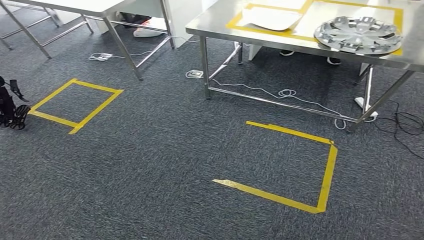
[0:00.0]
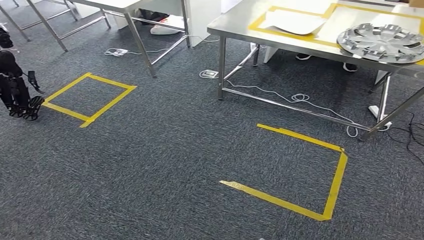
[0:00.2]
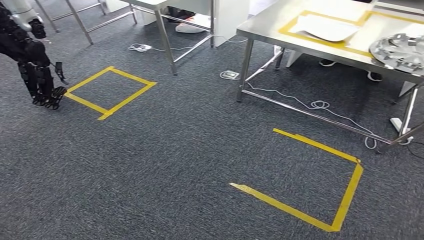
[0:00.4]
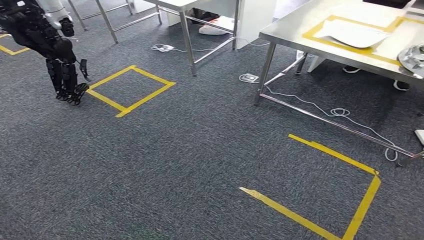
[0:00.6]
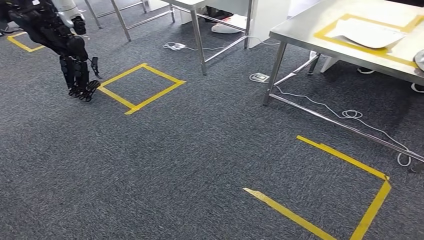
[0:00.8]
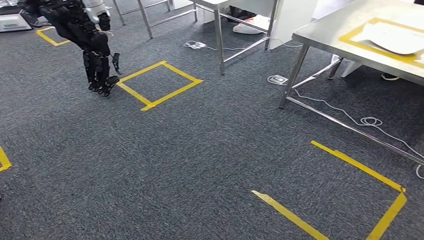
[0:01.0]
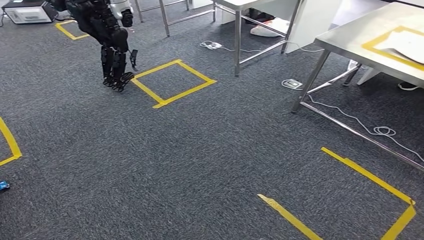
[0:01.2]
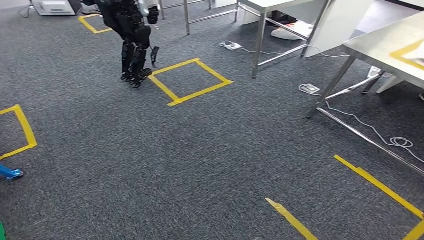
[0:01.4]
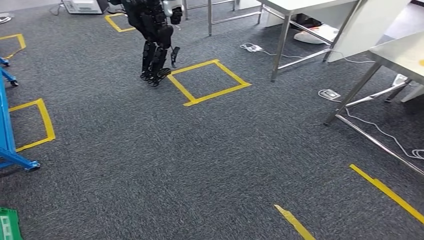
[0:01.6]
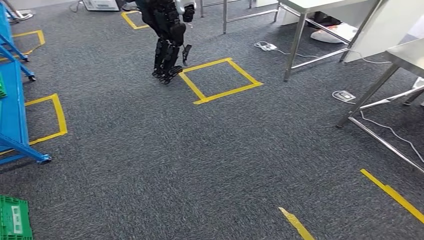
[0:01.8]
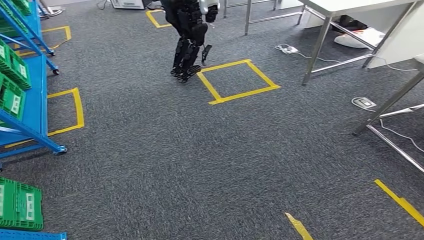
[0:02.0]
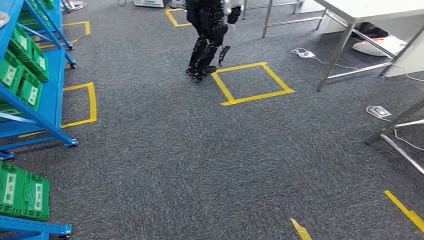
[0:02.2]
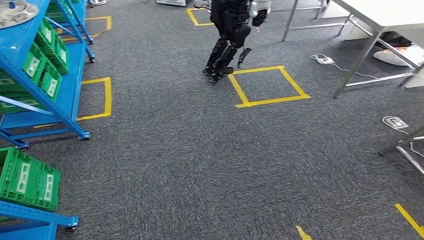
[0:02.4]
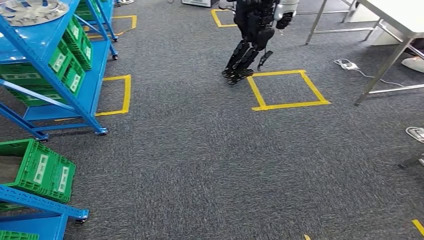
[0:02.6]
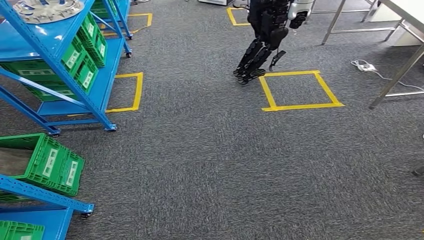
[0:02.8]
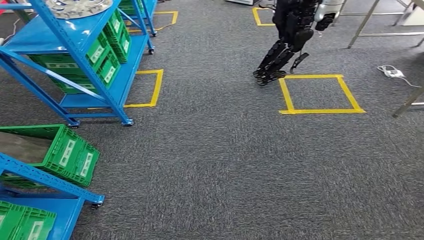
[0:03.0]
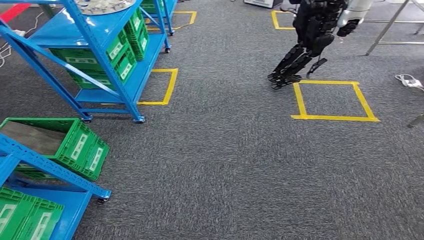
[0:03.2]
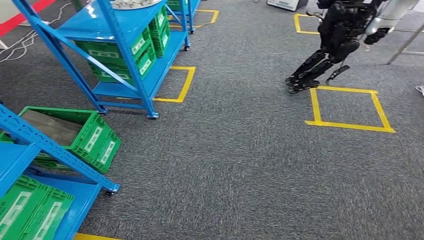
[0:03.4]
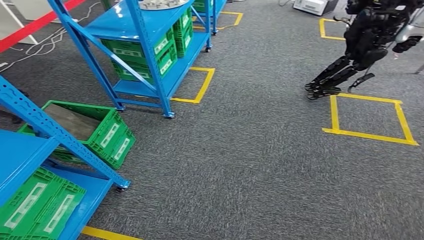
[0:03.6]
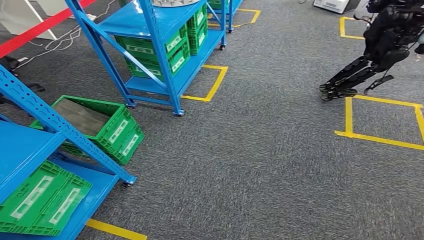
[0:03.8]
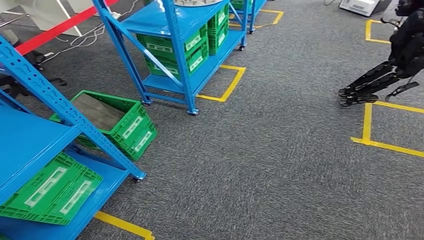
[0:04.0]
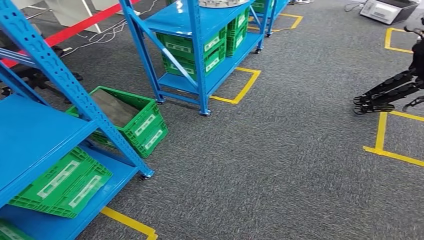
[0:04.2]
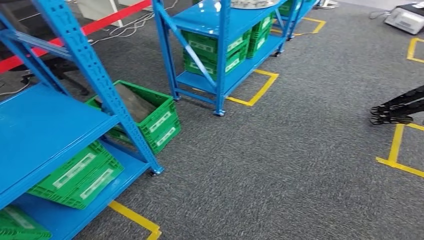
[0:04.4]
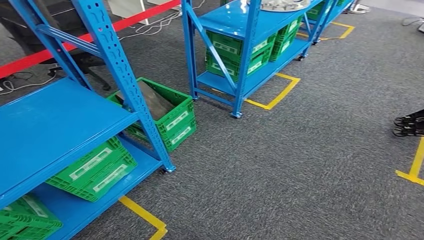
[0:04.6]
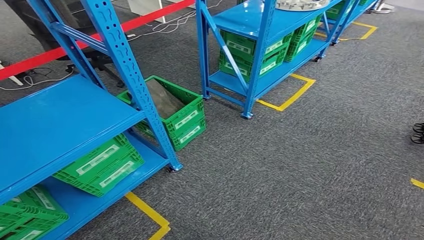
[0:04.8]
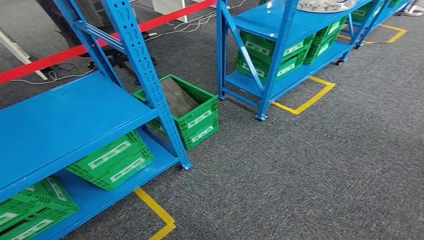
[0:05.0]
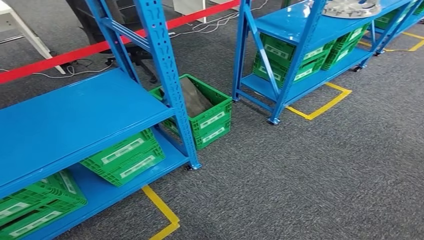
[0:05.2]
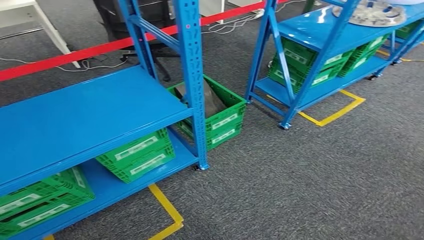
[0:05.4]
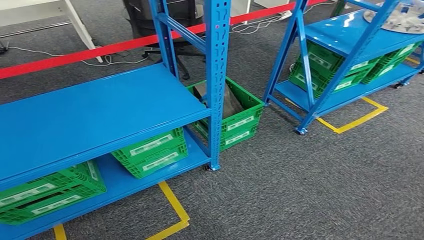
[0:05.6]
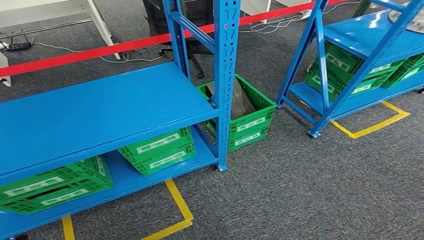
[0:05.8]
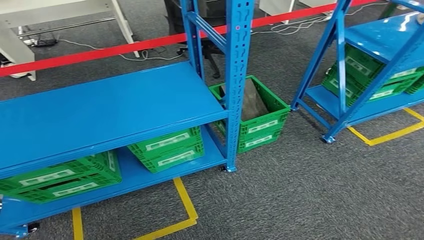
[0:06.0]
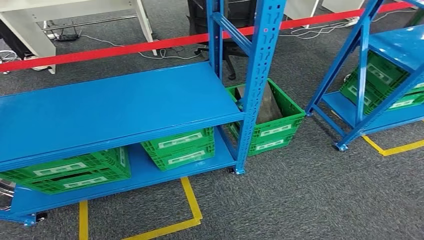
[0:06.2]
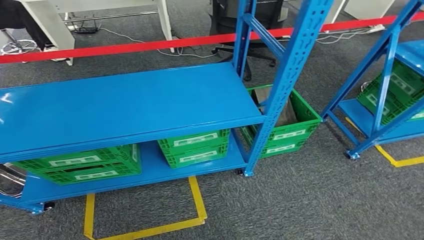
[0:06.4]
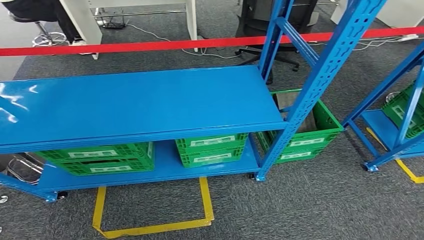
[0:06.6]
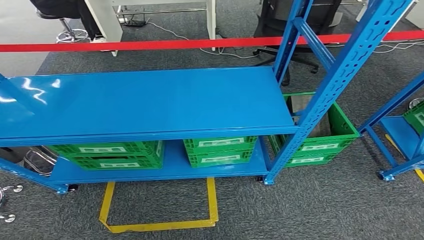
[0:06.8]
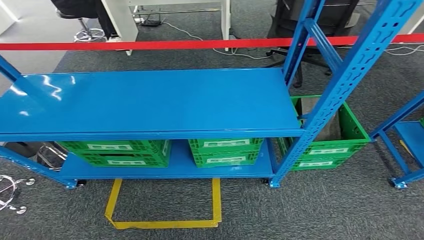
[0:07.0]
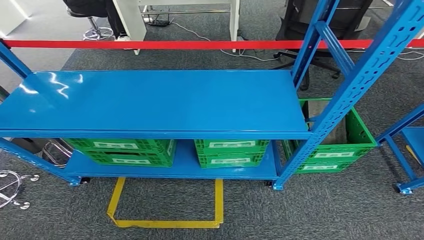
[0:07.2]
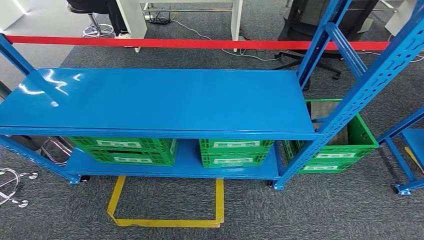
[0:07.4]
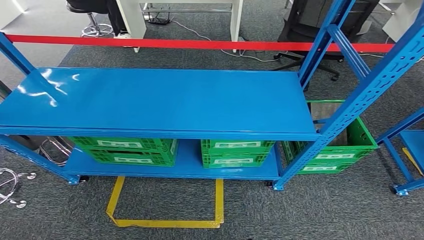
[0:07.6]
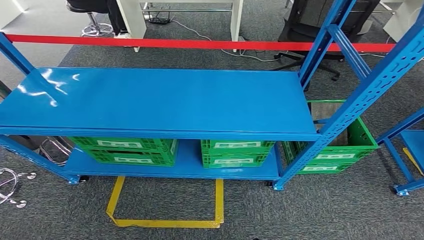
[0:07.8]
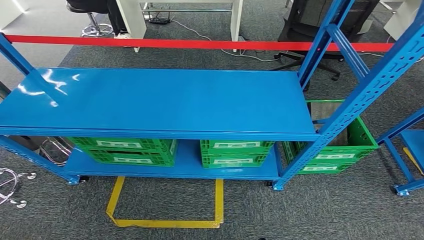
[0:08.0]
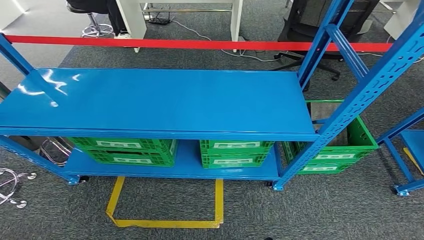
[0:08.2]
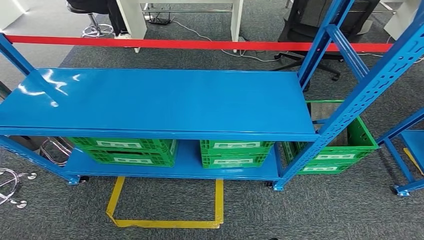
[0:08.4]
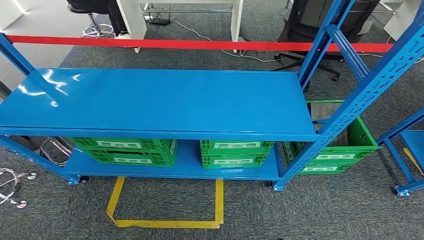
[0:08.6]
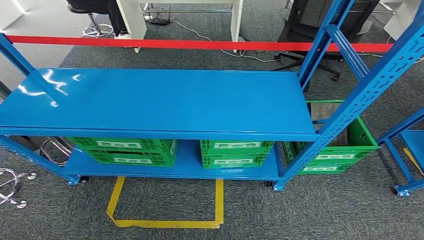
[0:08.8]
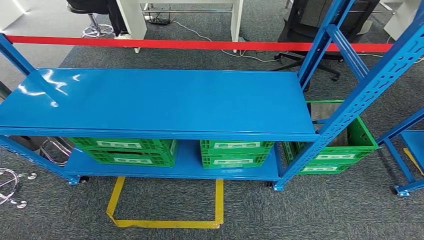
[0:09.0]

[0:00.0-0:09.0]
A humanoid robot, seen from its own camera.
Step, 0:00.0 to 0:09.0: Move to the initial position of the workbench.
0:07.6 to 0:09.0: The right hand ends up about 5 cm from where it was. The left hand travels to the left by about 5 cm.
